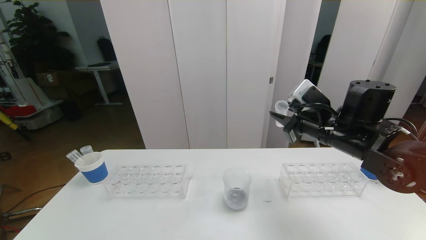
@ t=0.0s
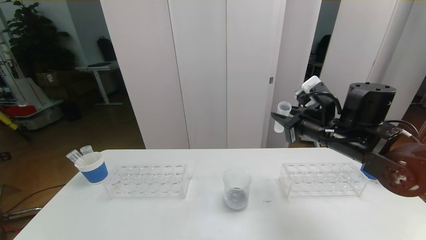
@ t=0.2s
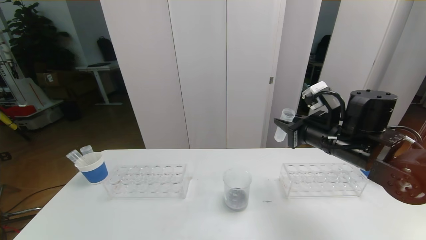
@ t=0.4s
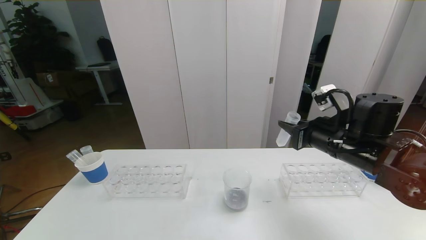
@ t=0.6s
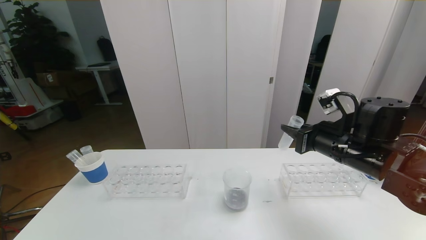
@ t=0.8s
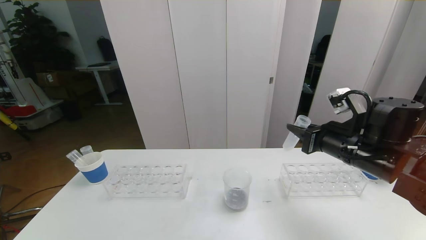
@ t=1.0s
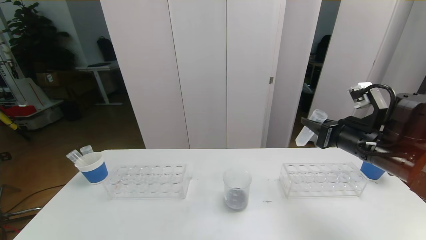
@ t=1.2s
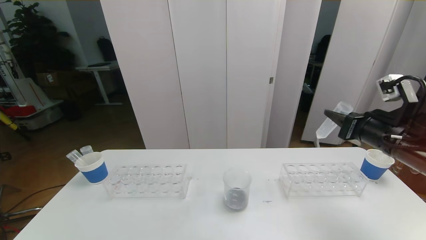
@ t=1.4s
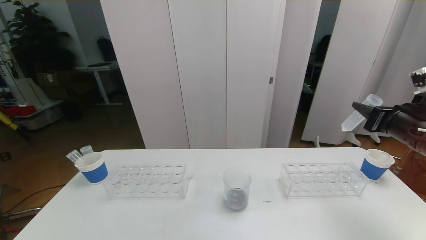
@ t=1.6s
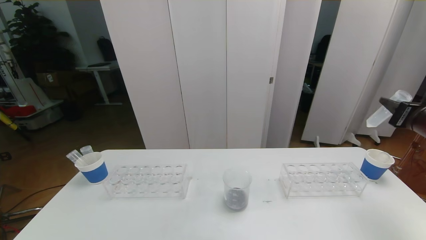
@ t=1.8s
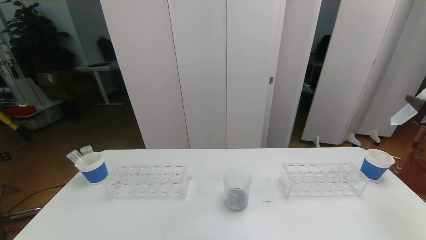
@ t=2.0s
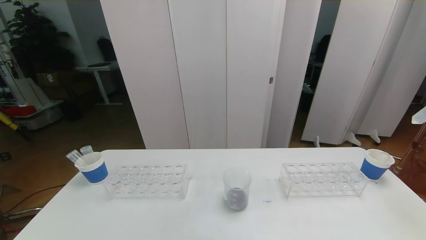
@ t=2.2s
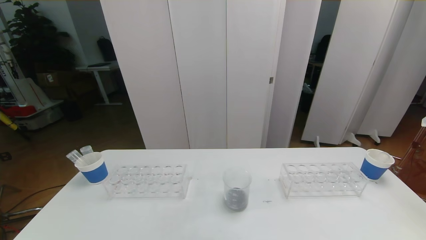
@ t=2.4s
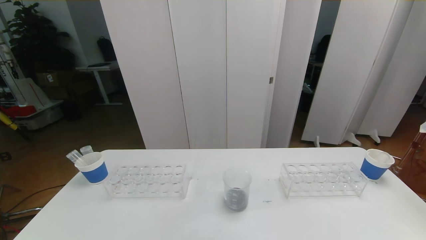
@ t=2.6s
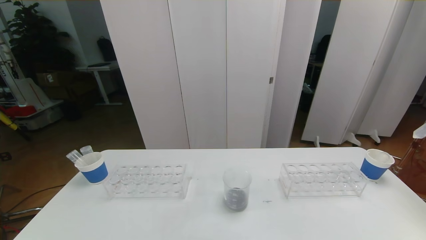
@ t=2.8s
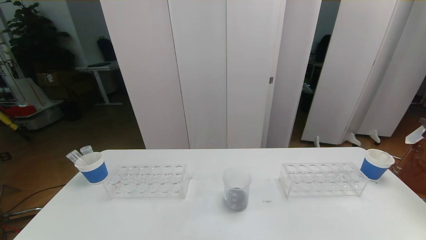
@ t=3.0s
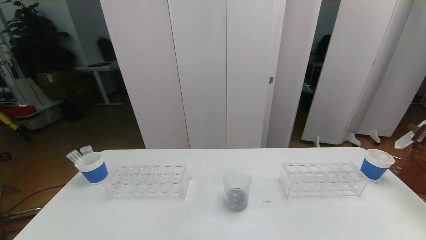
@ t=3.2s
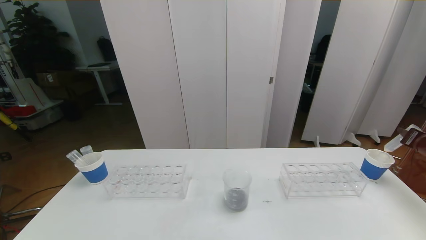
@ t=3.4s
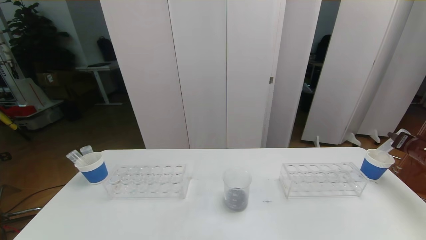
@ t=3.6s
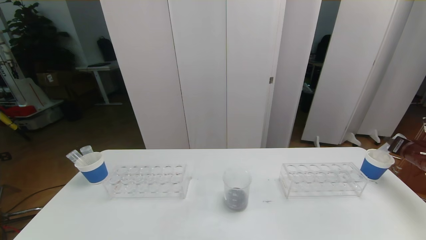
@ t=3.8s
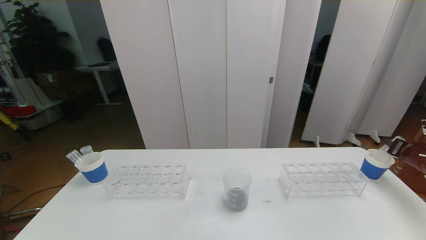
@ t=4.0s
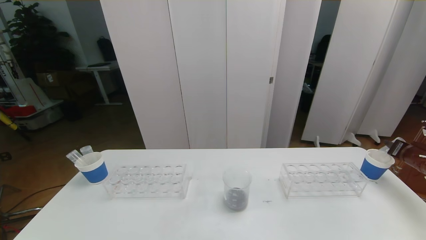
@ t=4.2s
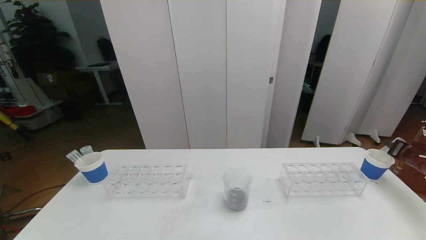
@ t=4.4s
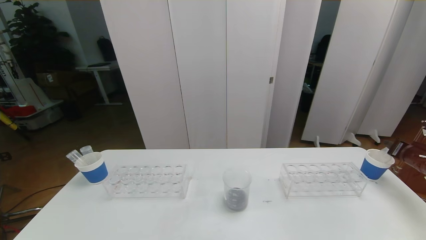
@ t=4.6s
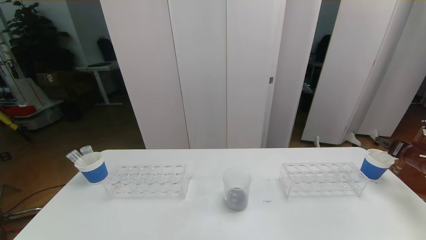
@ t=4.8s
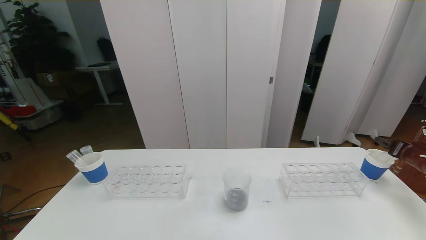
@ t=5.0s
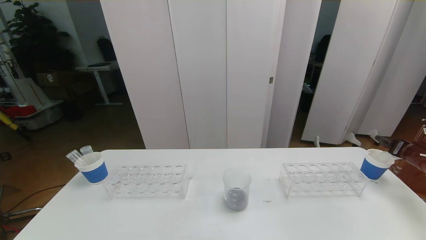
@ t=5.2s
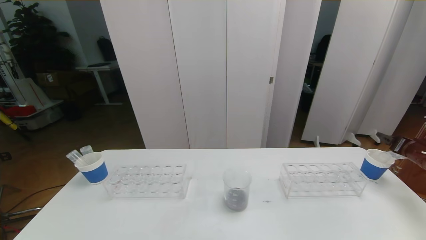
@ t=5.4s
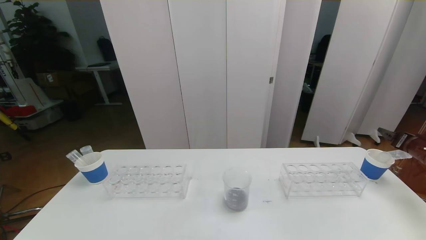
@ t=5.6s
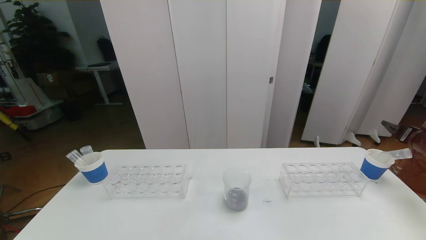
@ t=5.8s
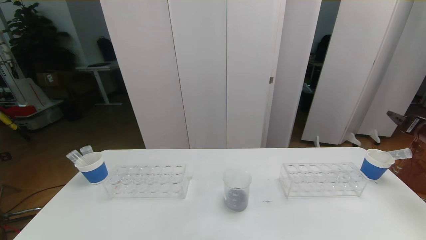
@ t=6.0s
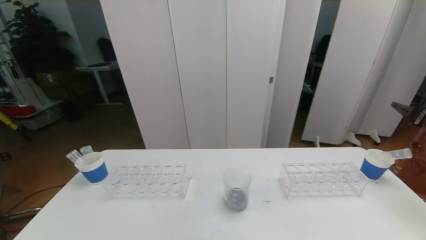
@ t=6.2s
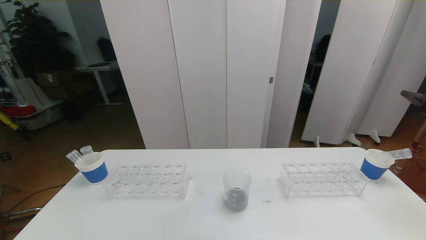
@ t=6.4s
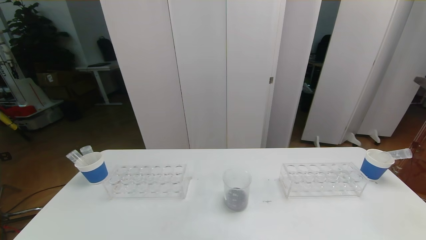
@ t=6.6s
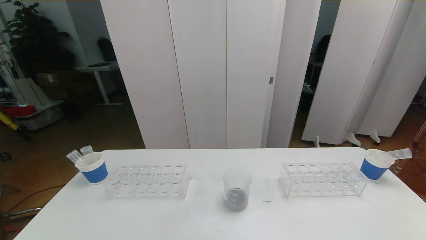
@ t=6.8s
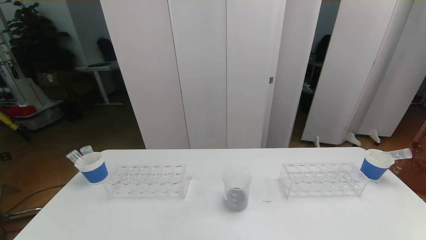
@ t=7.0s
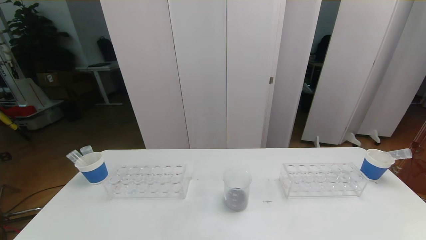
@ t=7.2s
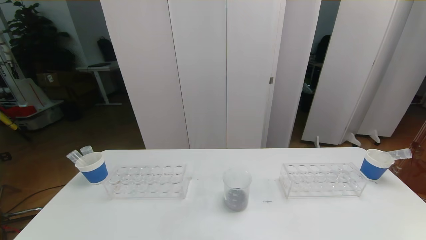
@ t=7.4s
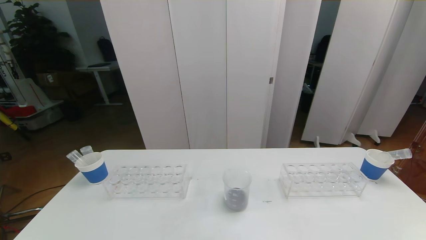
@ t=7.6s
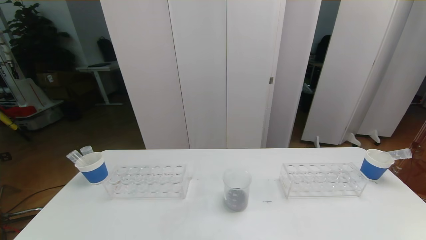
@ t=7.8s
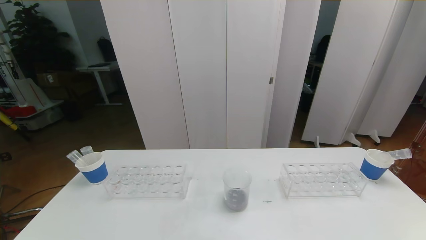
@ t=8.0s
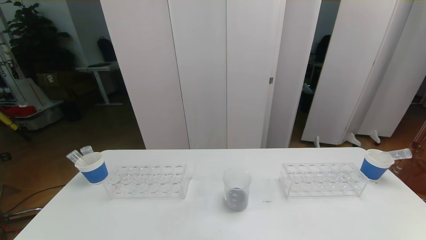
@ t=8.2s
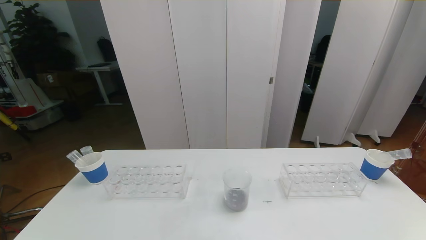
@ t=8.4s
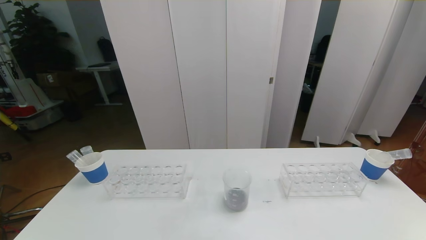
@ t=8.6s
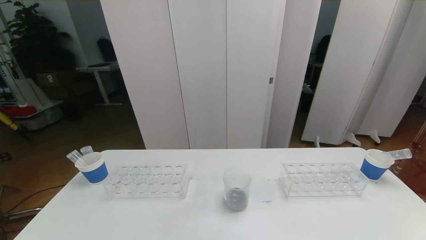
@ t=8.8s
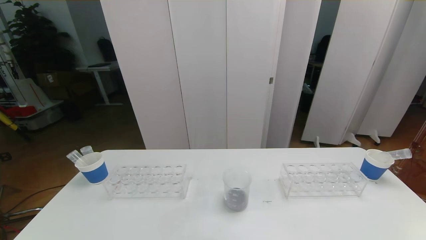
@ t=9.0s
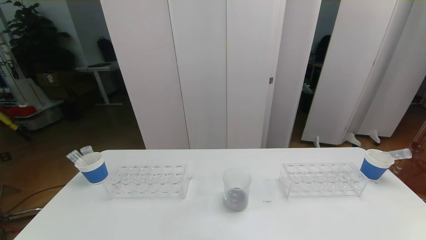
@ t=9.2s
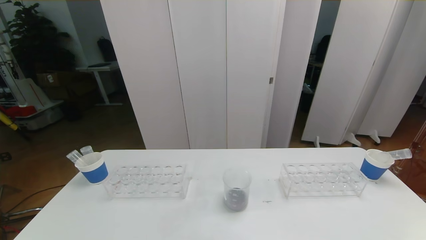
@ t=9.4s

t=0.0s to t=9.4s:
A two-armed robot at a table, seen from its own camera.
Task of the whole recording: pick up the test tube with red pigment the test tube with blue pigment and the test tube with white pigment by grippers and pour them into the beaker.
t=0.0s to t=1.6s: The right gripper heads to the right, covering some 15 cm.
t=1.6s to t=3.2s: The right gripper goes approximately 20 cm to the right and downward.
t=3.2s to t=4.8s: The right gripper heads downward, covering some 5 cm, and opens its fingers.
t=4.8s to t=6.2s: The right gripper travels upward by some 10 cm.
t=6.2s to t=7.8s: The right gripper heads backward and to the left, covering roughly 35 cm.

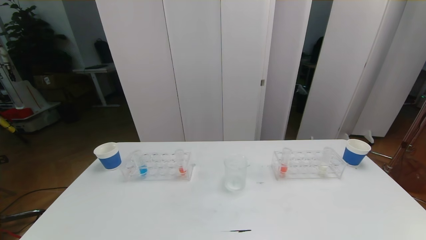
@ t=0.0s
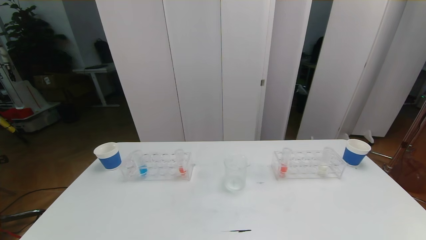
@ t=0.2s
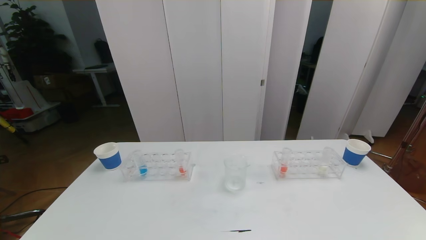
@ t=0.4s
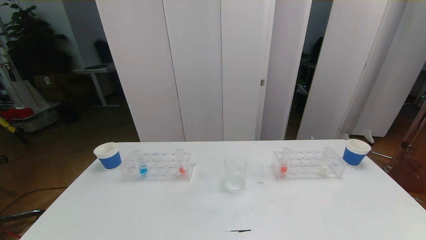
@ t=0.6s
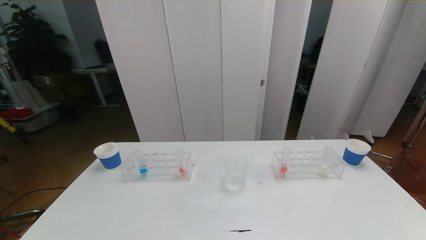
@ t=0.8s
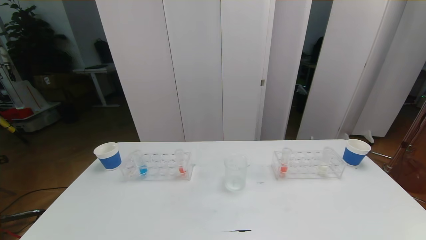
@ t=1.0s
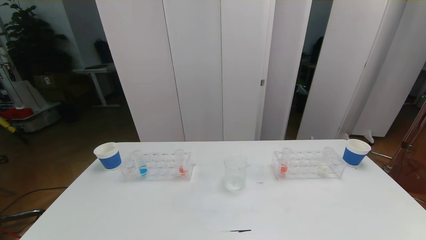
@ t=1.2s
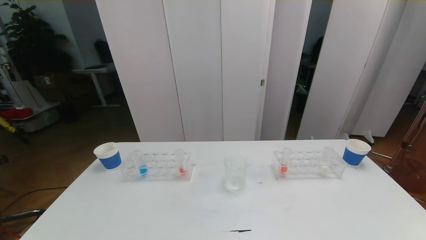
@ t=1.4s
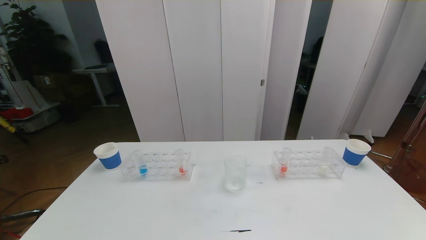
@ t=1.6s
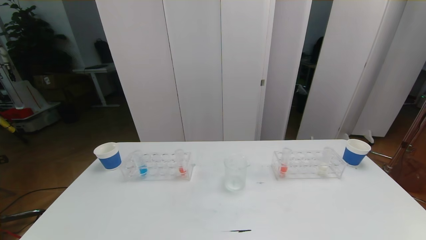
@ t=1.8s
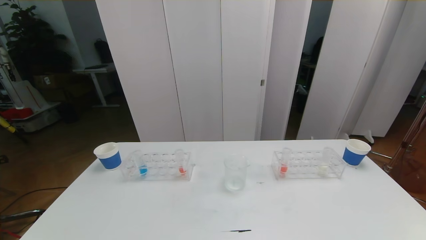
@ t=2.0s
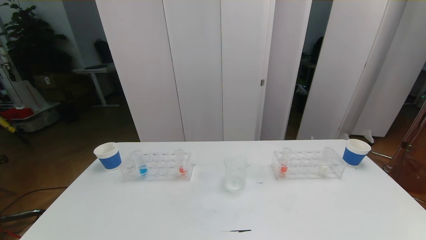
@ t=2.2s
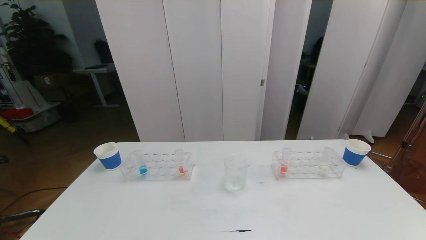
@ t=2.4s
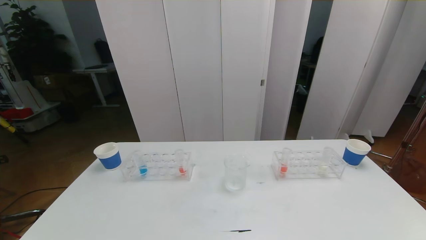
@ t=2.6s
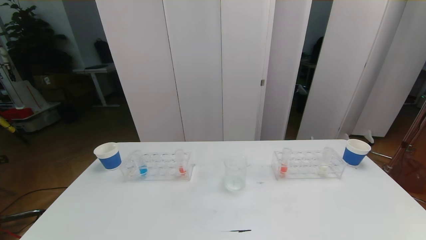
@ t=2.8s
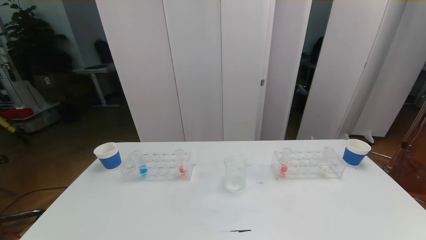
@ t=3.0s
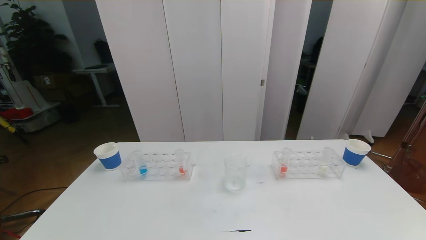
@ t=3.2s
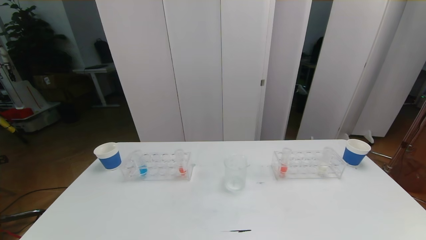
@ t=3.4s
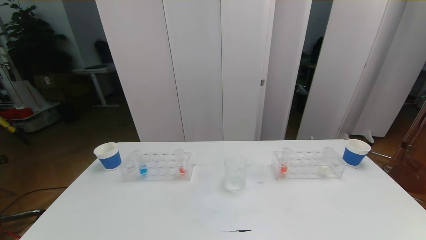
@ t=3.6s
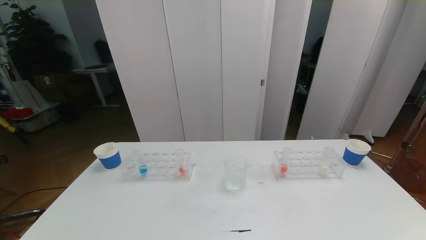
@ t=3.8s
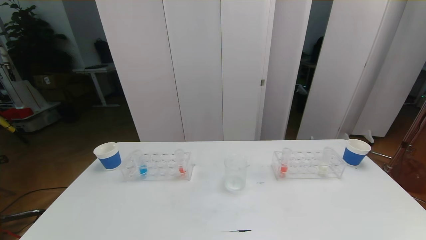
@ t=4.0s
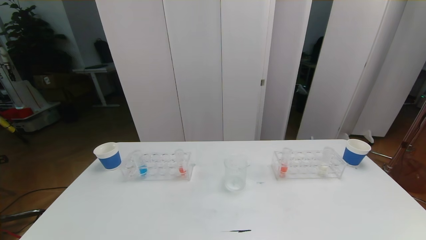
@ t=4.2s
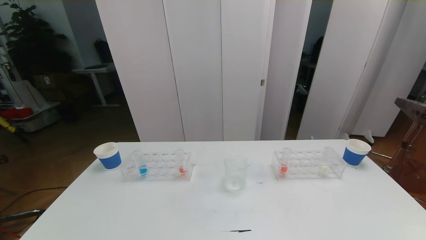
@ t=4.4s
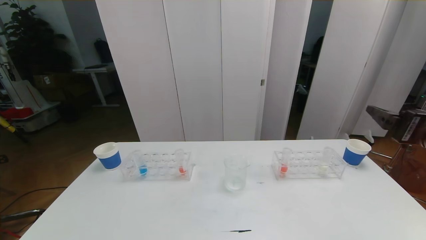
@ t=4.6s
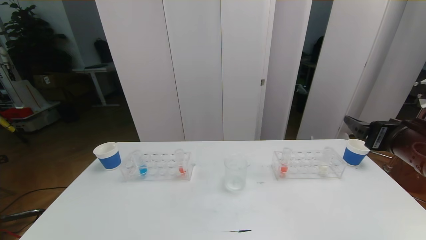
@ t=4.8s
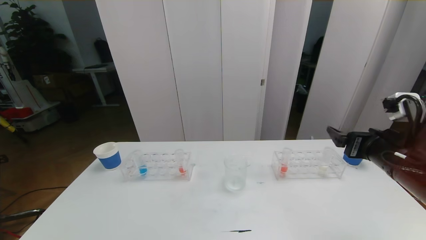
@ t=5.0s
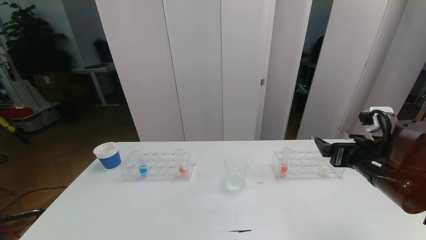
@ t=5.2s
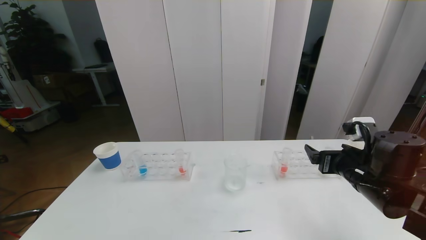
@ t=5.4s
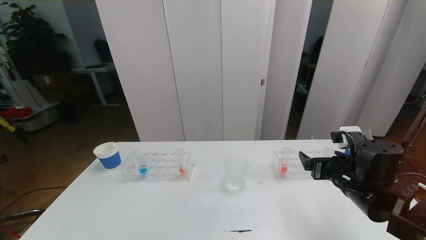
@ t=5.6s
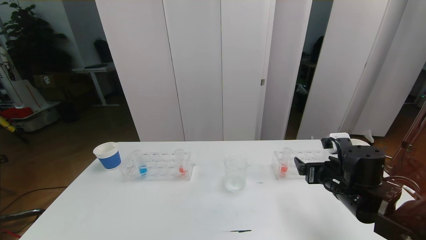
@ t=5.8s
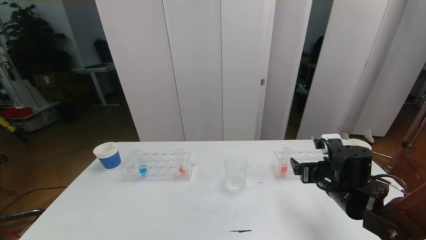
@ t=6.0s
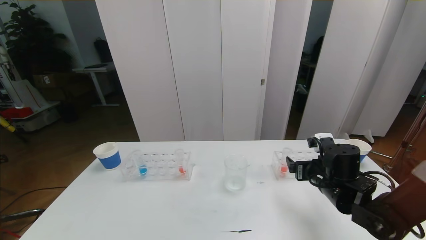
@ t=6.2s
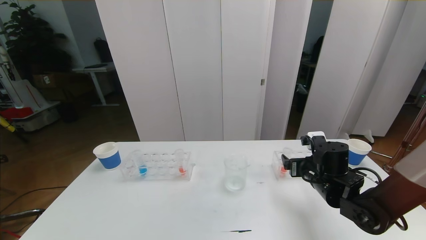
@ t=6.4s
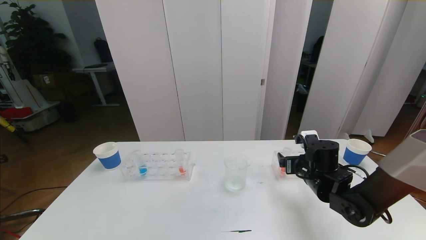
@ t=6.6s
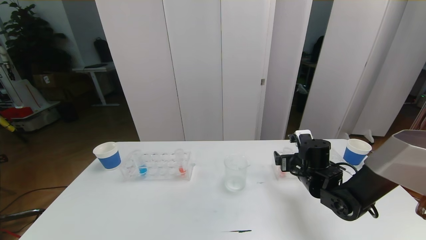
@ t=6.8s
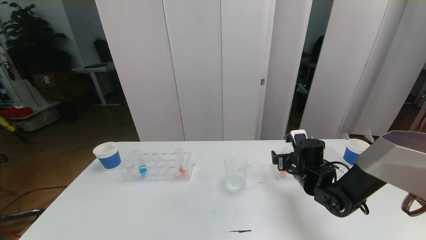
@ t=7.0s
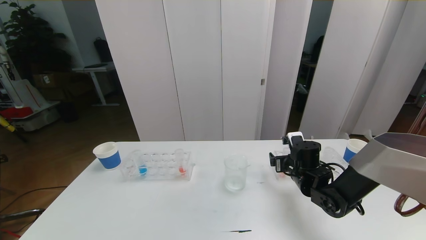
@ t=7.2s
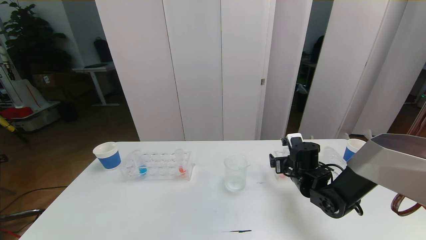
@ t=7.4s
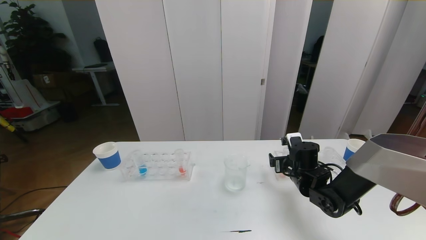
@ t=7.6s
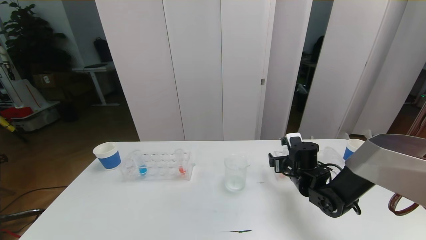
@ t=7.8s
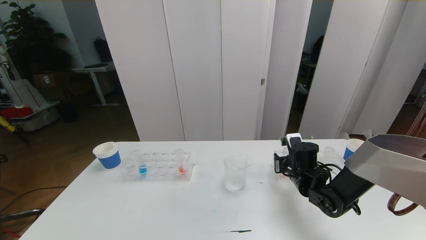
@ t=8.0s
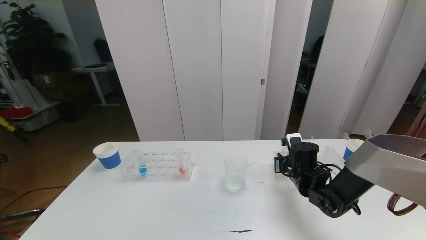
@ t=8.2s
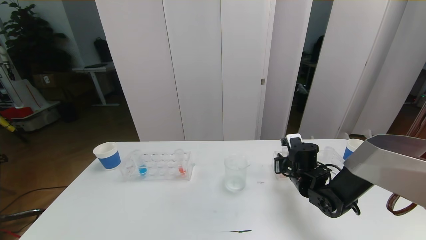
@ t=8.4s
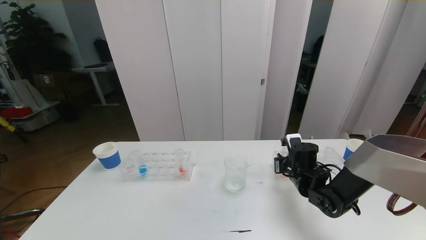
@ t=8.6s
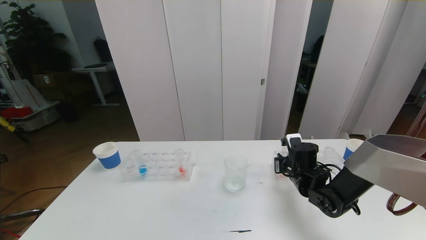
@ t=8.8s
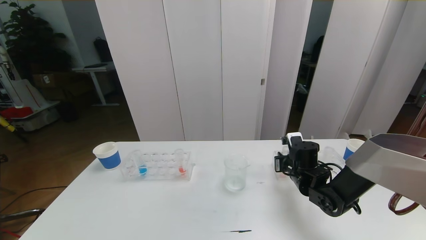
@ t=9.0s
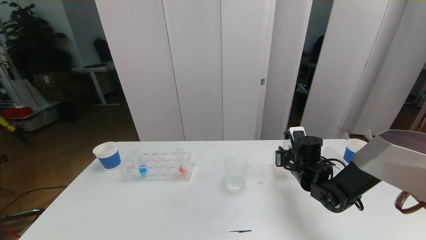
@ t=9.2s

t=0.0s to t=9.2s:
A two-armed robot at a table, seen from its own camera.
Task of the whole recording: pick up the test tube with red pigment the test tube with blue pigment and the test tube with white pigment by grippers and pour them into the beaker.
t=0.0s to t=1.6s: Both grippers stay put.
t=4.6s to t=6.2s: The right gripper is displaced downward, forward and to the left by some 20 cm.
t=6.2s to t=7.6s: The right gripper goes roughly 5 cm forward.
t=7.6s to t=9.2s: The right gripper closes up.
